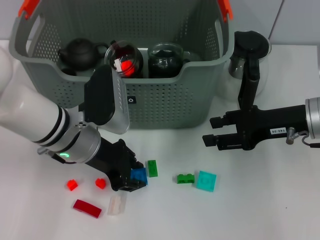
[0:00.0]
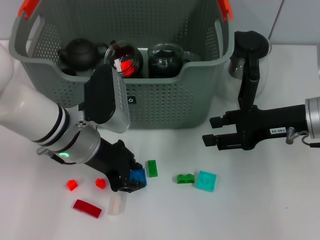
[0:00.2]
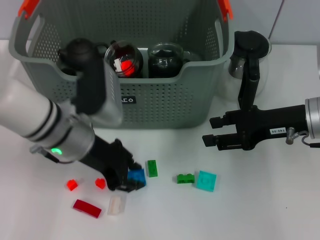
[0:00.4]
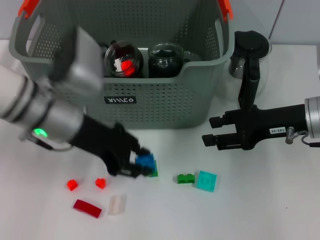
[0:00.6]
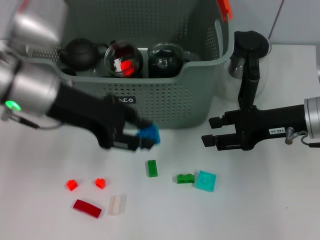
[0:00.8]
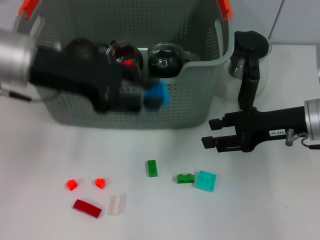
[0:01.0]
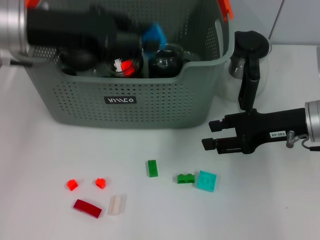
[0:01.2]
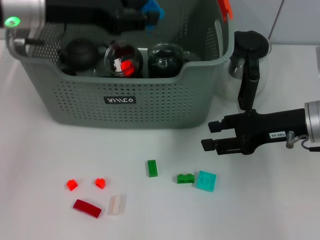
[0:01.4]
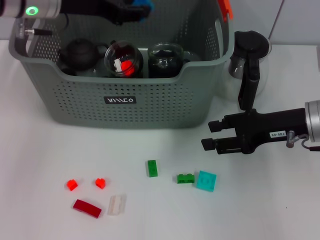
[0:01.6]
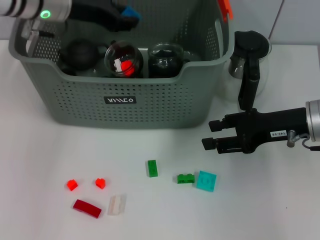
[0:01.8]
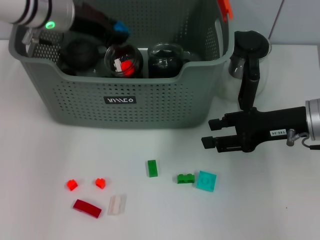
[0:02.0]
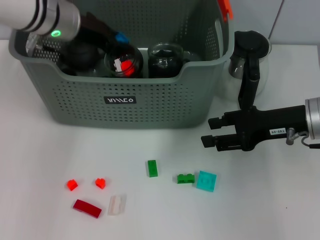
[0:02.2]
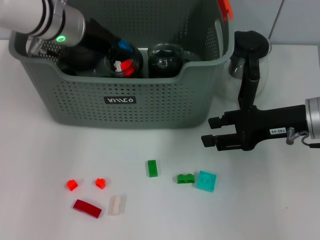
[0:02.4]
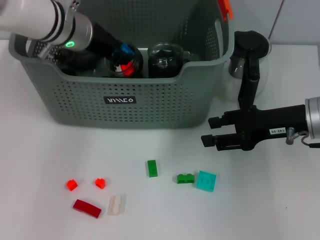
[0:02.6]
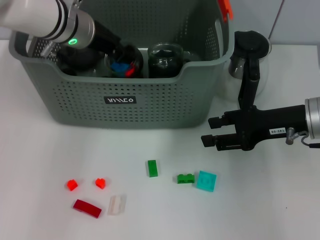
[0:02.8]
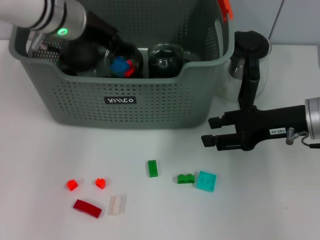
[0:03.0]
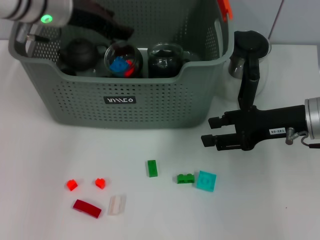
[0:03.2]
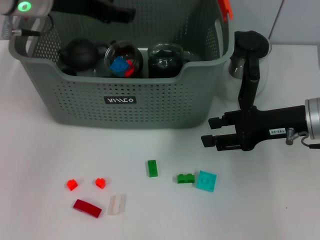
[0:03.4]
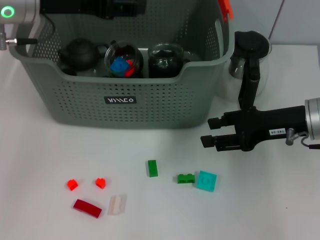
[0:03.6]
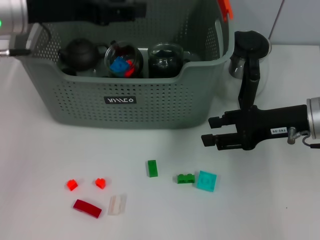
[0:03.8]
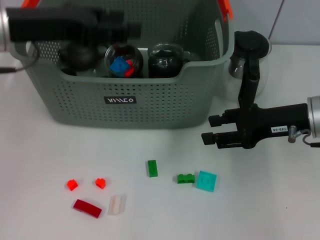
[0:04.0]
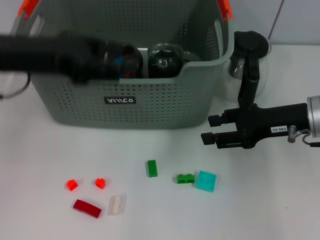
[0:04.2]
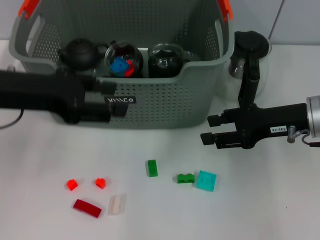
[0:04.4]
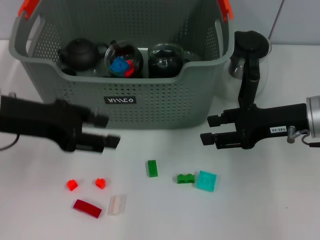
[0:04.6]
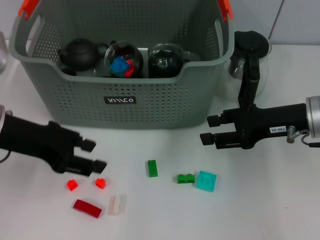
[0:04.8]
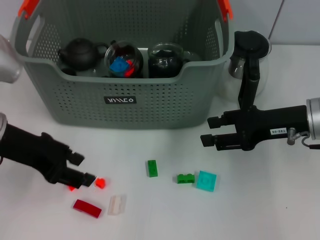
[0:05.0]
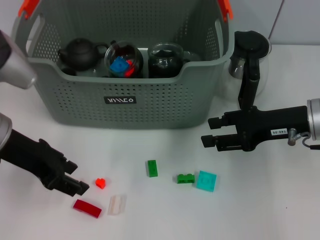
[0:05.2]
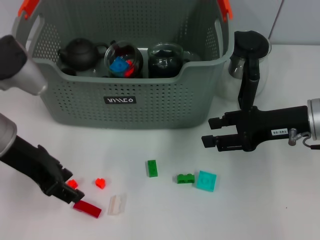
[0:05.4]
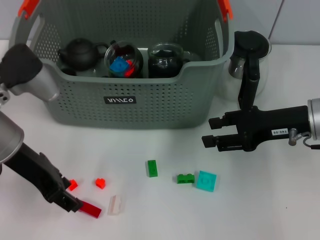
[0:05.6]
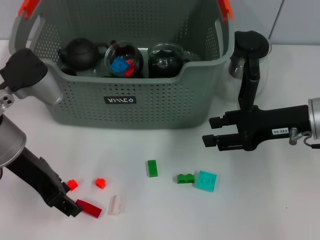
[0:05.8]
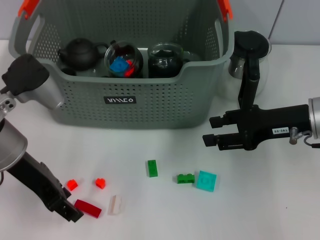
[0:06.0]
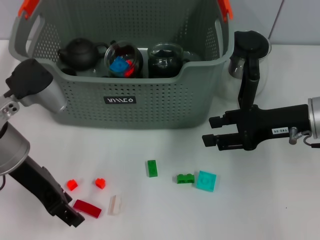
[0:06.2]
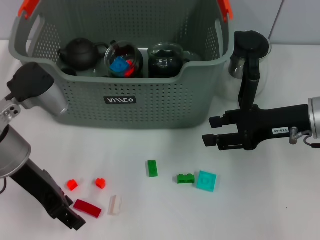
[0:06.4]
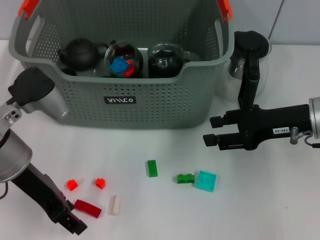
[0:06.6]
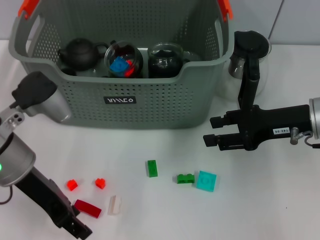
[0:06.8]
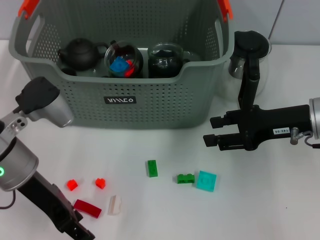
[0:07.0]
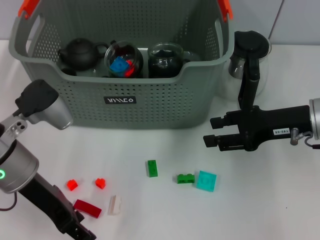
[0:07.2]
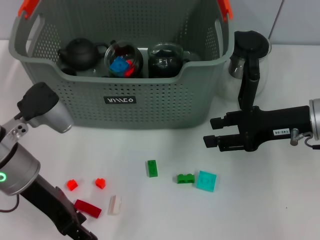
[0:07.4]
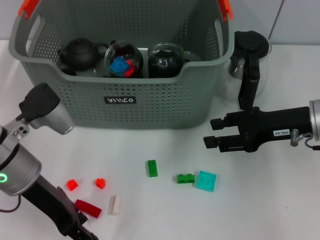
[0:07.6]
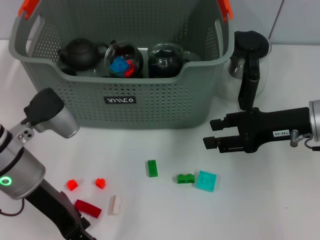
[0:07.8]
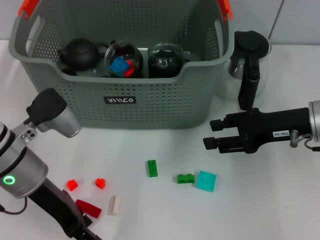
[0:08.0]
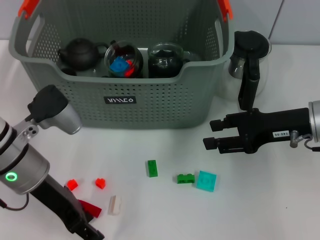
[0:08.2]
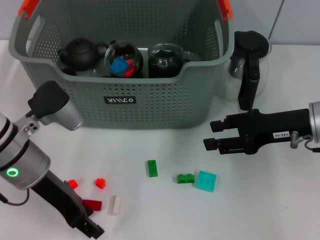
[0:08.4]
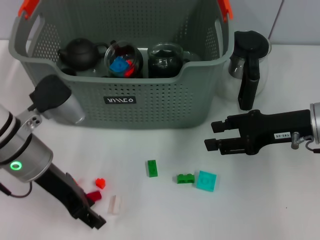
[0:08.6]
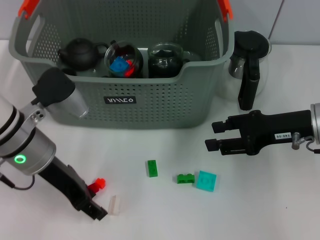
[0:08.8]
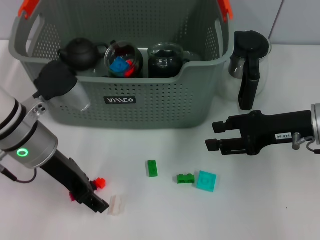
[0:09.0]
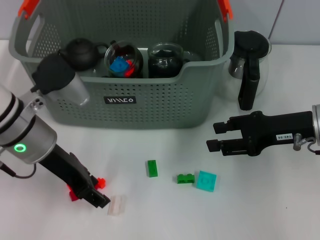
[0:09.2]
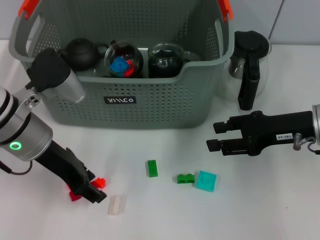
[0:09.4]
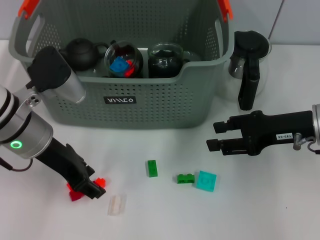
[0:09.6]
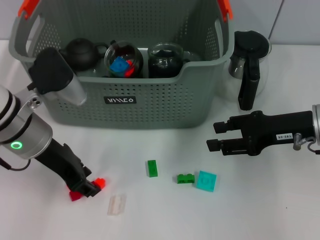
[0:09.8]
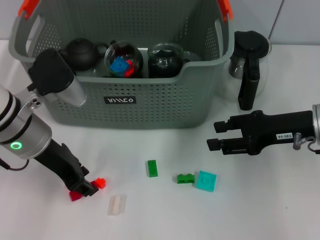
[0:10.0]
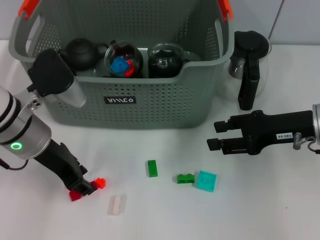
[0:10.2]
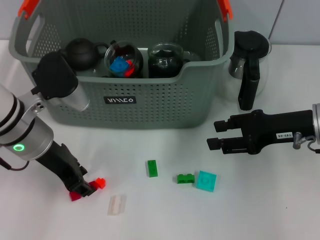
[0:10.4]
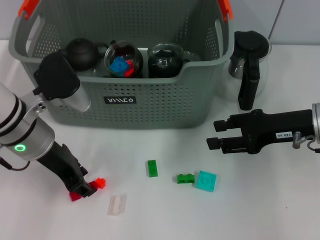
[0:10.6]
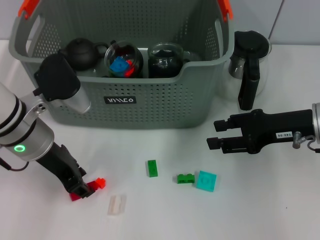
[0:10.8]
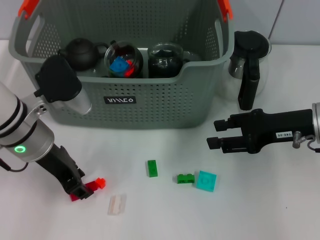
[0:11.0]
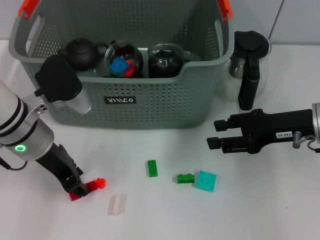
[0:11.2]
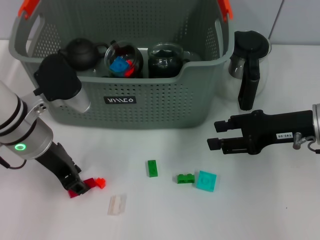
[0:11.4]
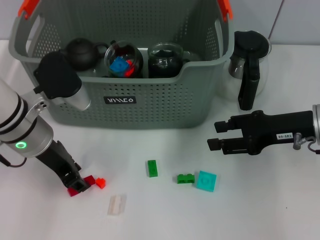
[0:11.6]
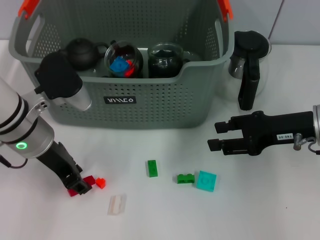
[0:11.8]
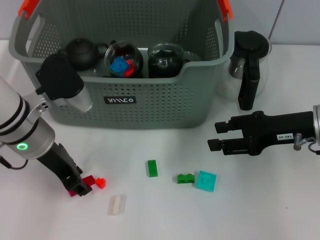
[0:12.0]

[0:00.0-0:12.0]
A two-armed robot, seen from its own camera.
Task of the whole recording: pick up the teacup on the table and place it into the storage bin, pick up the block on the table and place it into the storage bin.
Step, 0:00.0 to 0:03.4: Place the dark blue block in the storage box with left gripper.
0:00.0 to 0:01.6: The left gripper heads upward and forward, covering about 15 cm.
0:03.0 to 0:04.4: The left gripper travels backward and to the left by about 15 cm.
0:04.4 to 0:06.0: The left gripper is displaced downward by roughly 5 cm.
0:06.0 to 0:10.4: The grippers move only a little.
0:10.4 to 0:12.0: Both grippers stay about where they are.

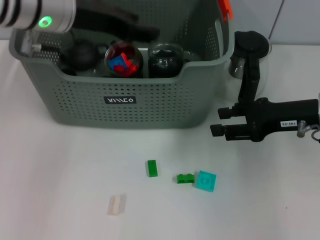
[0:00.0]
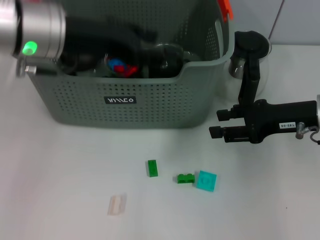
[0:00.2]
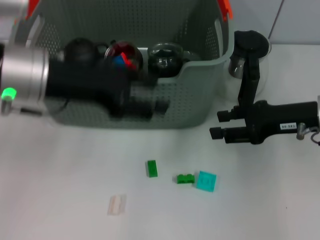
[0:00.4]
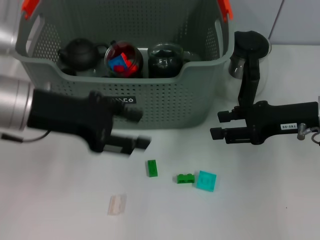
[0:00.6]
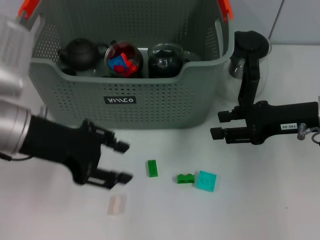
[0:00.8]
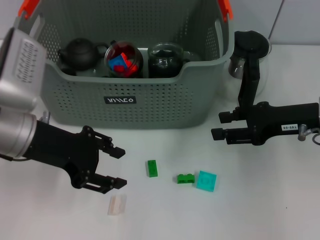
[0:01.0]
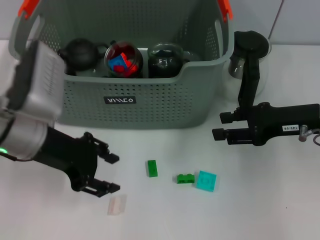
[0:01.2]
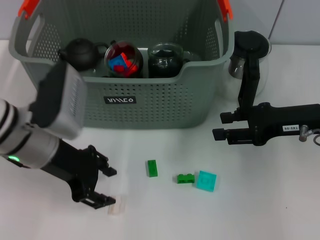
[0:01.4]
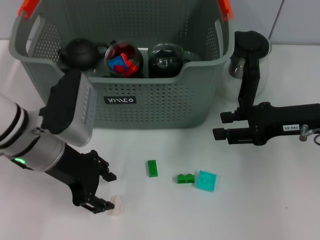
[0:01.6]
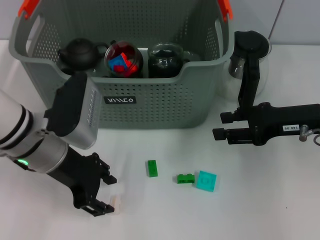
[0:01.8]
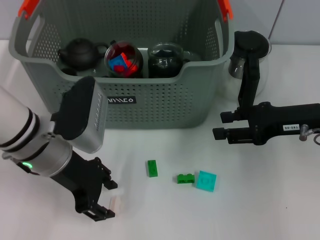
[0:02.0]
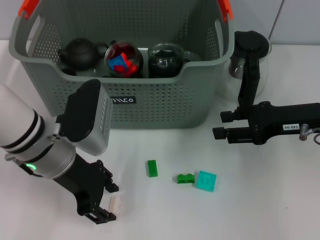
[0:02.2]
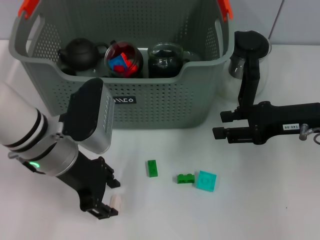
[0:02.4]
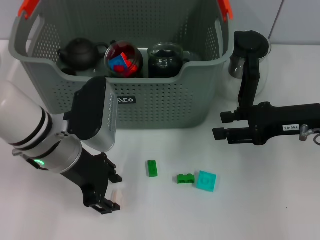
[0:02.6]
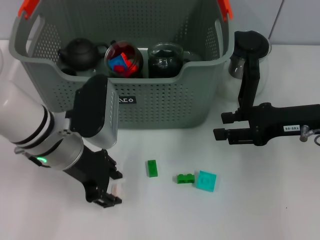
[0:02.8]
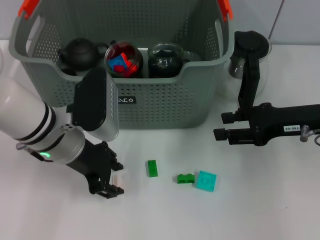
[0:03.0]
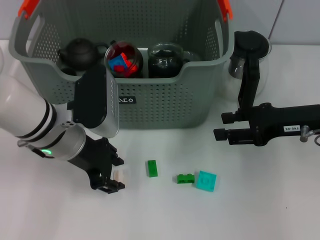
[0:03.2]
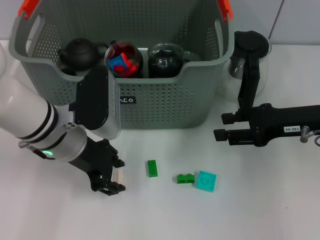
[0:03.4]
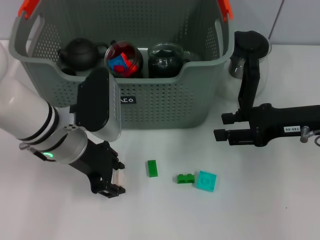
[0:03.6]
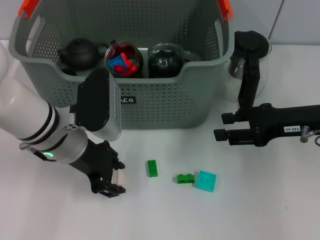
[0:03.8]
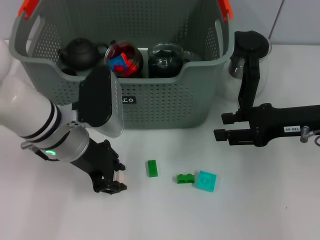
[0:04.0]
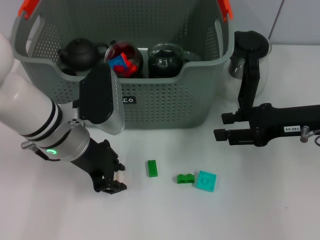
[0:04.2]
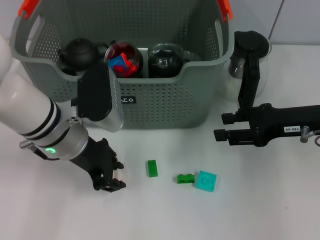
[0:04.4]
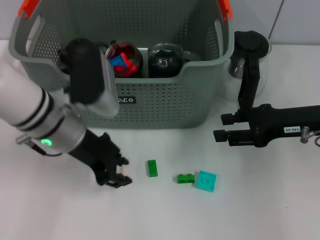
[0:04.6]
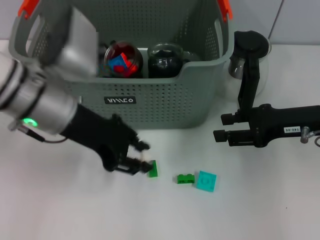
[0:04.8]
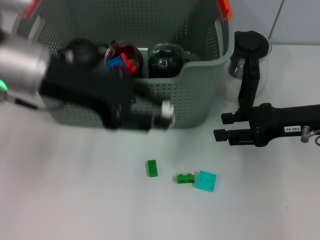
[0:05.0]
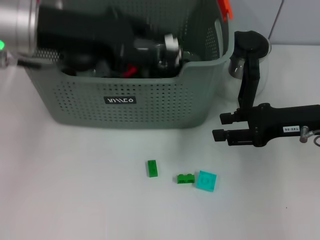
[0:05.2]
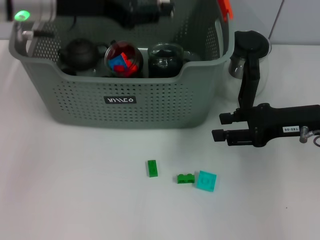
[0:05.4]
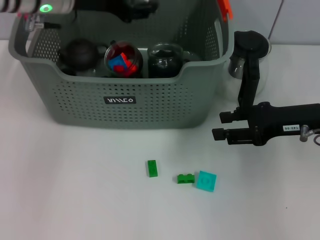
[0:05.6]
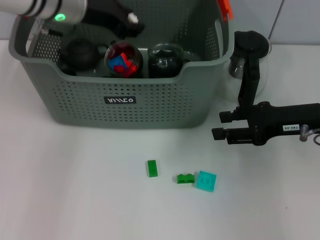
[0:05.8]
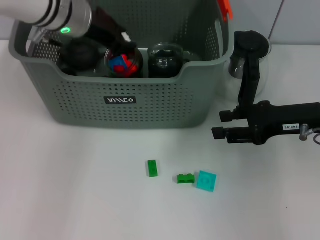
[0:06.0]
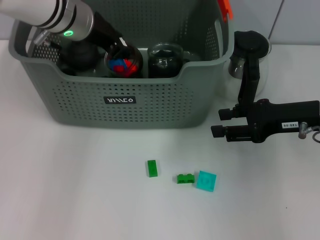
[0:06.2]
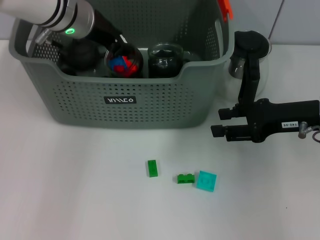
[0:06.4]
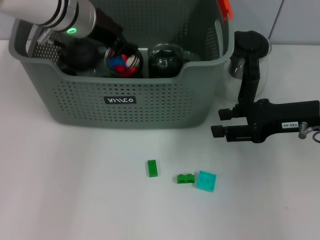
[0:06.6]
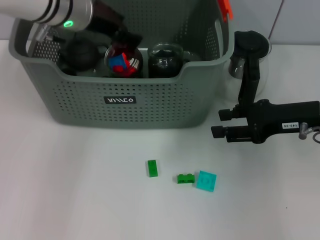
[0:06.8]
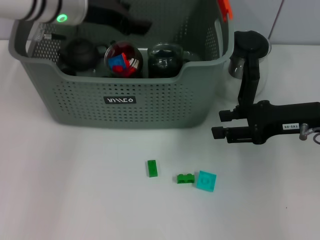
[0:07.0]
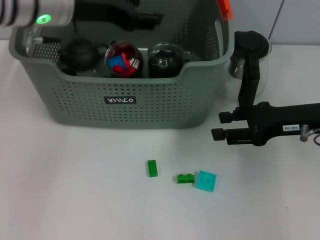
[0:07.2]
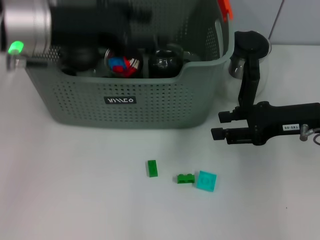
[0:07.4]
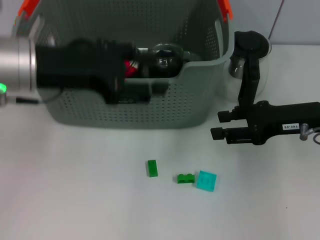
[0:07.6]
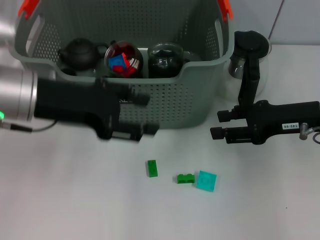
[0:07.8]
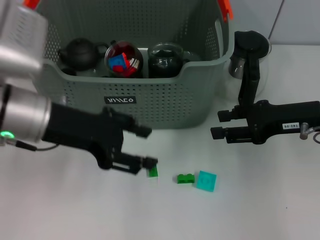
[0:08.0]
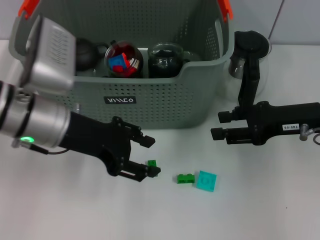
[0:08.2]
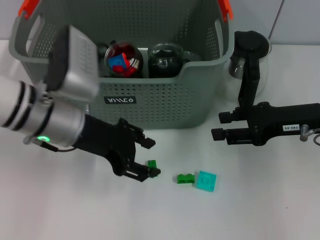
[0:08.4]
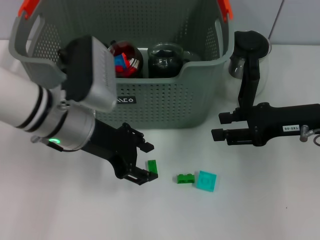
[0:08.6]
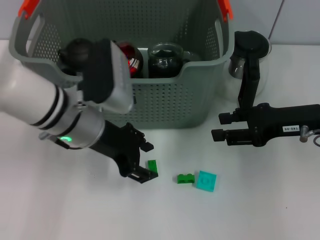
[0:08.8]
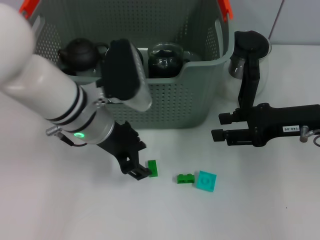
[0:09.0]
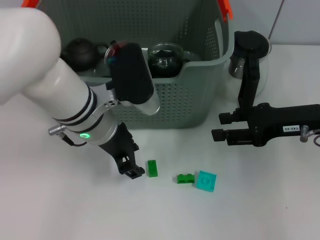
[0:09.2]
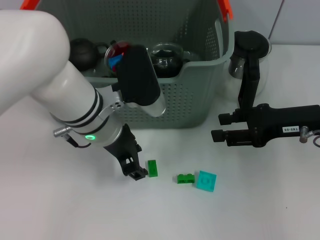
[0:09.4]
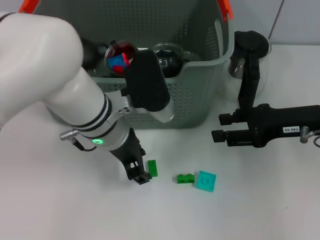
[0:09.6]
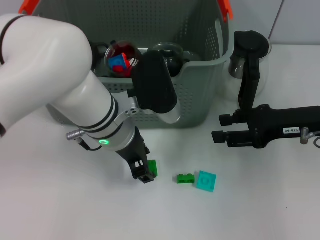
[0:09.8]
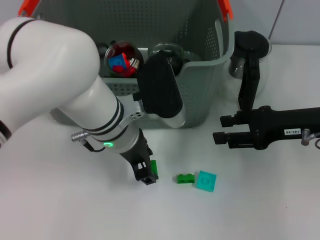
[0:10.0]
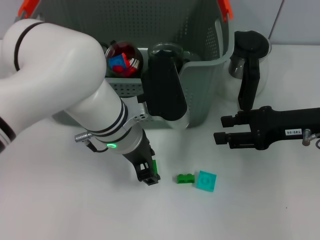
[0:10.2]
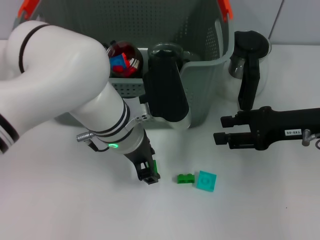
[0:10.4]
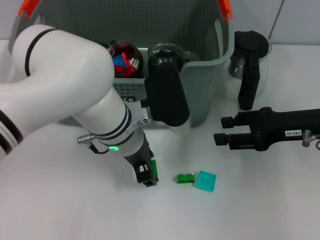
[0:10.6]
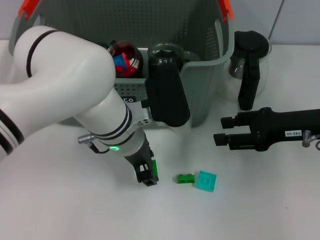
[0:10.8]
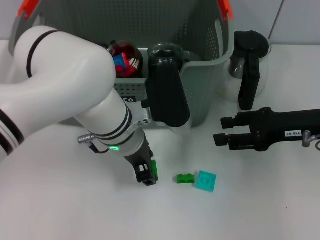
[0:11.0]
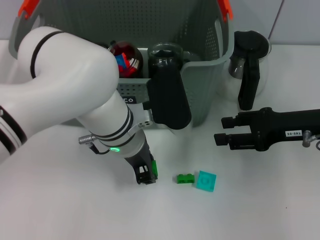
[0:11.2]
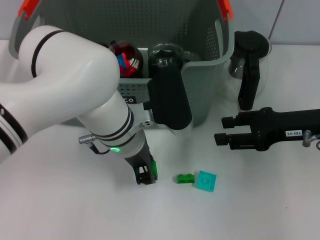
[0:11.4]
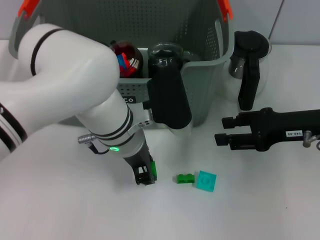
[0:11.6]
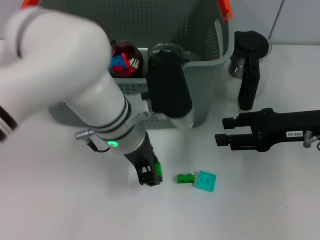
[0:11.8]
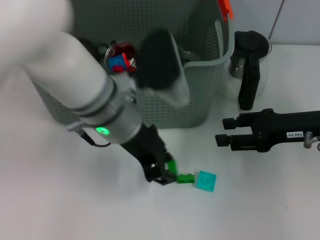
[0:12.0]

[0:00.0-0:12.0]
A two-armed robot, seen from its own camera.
Task of the whole recording: pick up the teacup on the table and place it into the storage bin, pick up the block on the table and place it into the storage bin.
Step, 0:00.0 to 0:04.2: Grasp the white block with left gripper.
Step, 0:04.4 to 0:07.2: Place the white block in the storage box with left gripper.
Step, 0:07.4 to 0:11.2: Grasp the green block with left gripper.
0:00.0 to 0:01.6: The left gripper heads downward and backward, covering roughly 15 cm.
0:01.6 to 0:04.4: The grippers stay close to where they were, moving slightly.
0:04.4 to 0:06.0: The left gripper is displaced forward and upward by about 15 cm.
0:06.0 to 0:07.6: The left gripper heads backward, covering about 10 cm.
0:07.6 to 0:09.0: The left gripper travels to the right and downward by approximately 10 cm.
0:09.0 to 0:10.4: The left gripper shifts roughly 5 cm to the right.
0:10.4 to 0:12.0: The left gripper is displaced upward by roughly 5 cm.
